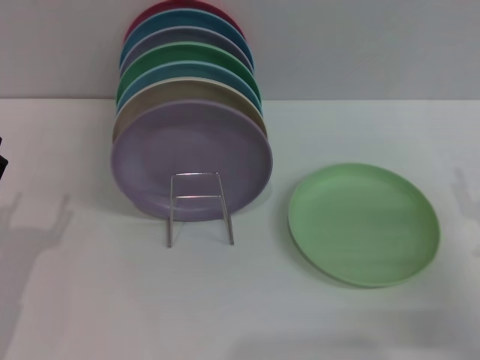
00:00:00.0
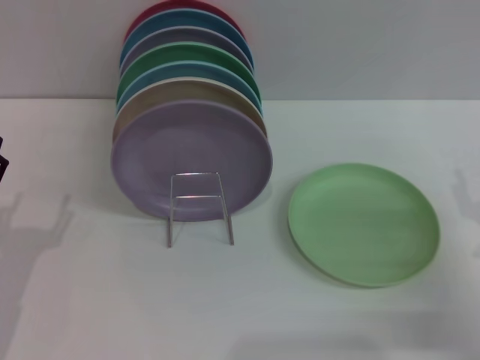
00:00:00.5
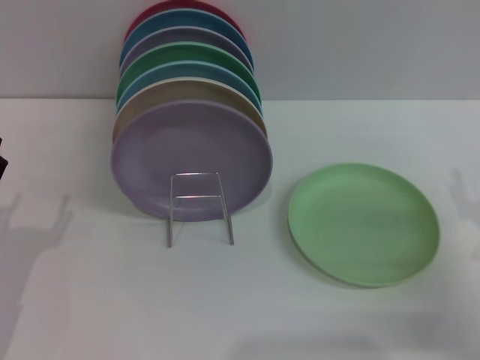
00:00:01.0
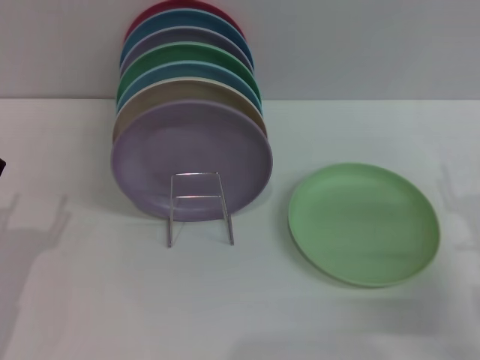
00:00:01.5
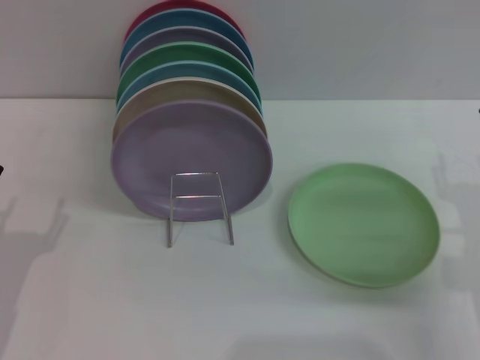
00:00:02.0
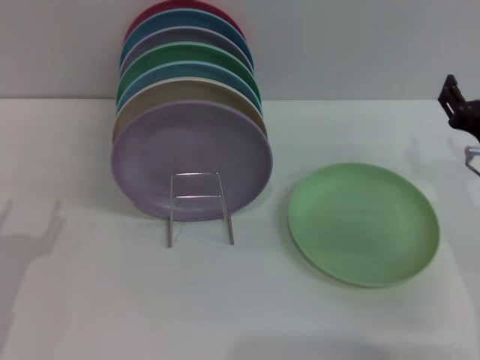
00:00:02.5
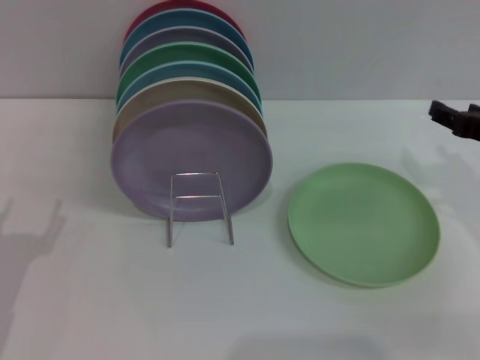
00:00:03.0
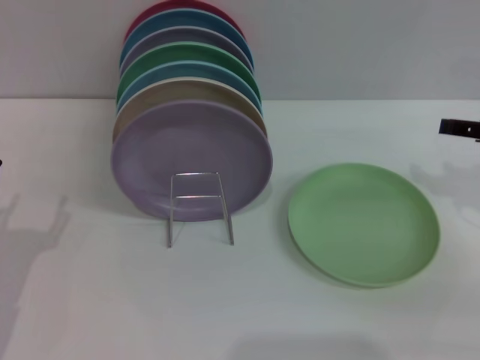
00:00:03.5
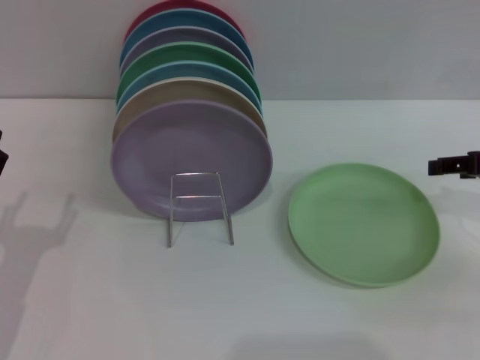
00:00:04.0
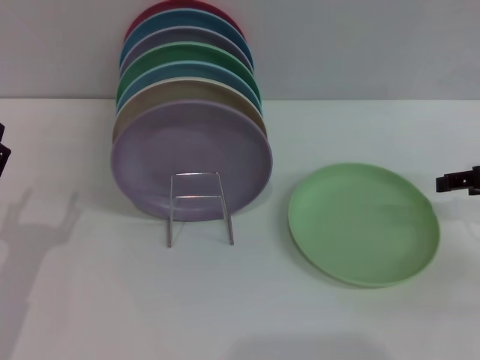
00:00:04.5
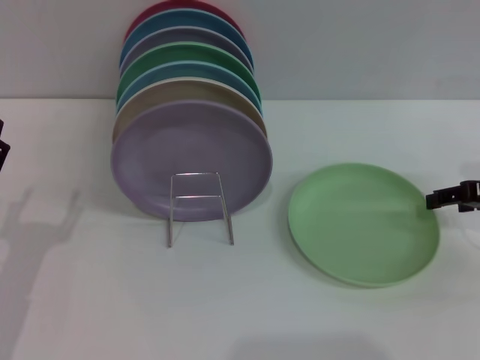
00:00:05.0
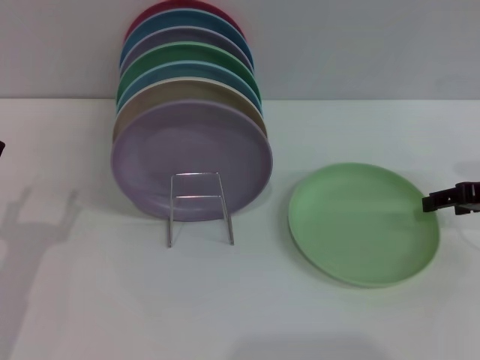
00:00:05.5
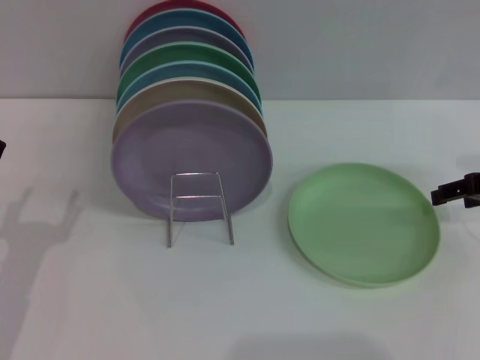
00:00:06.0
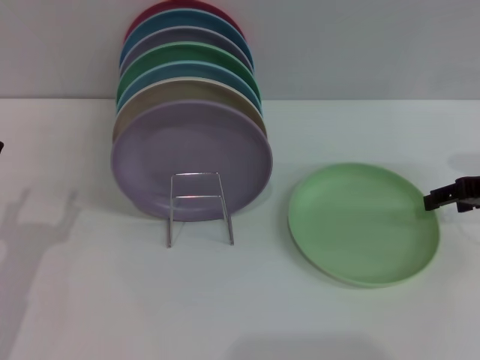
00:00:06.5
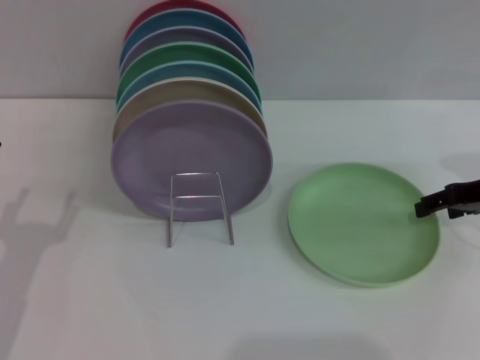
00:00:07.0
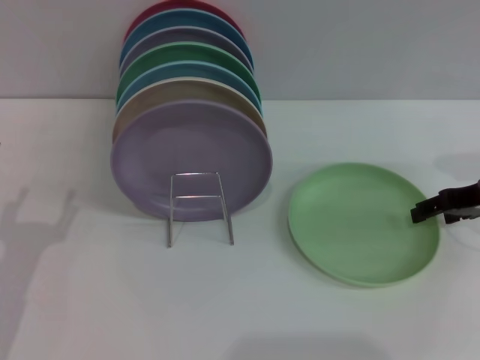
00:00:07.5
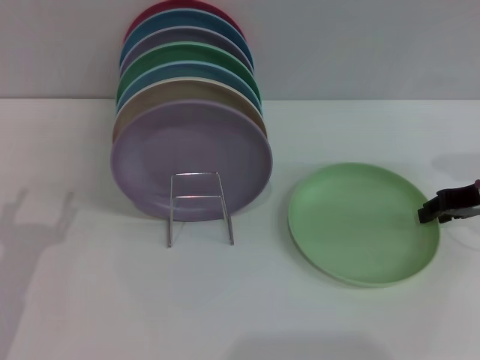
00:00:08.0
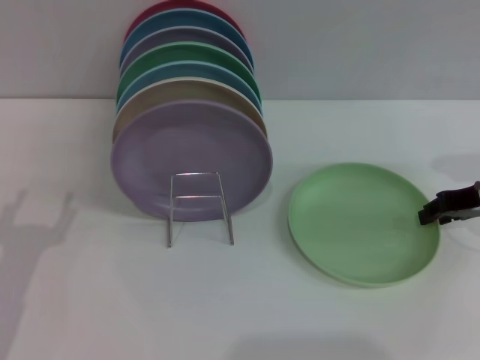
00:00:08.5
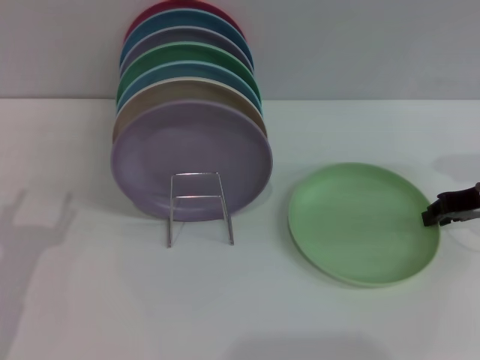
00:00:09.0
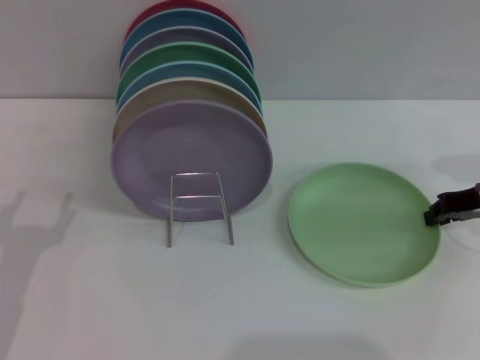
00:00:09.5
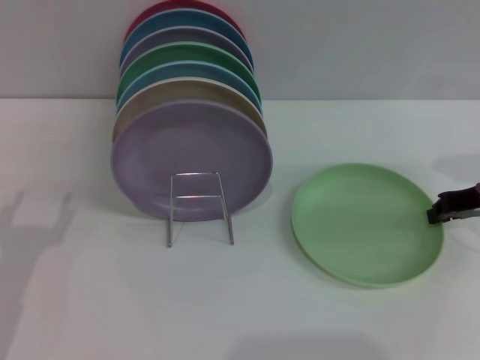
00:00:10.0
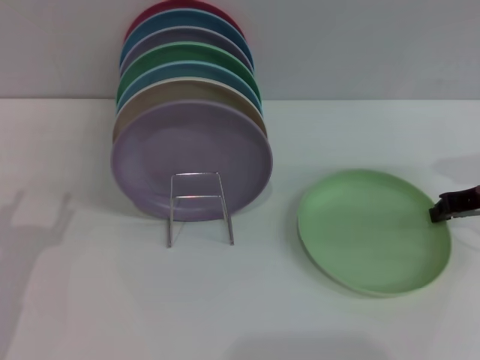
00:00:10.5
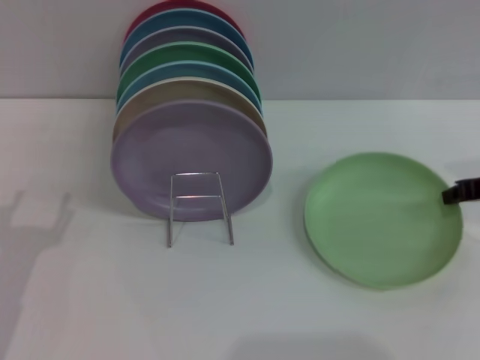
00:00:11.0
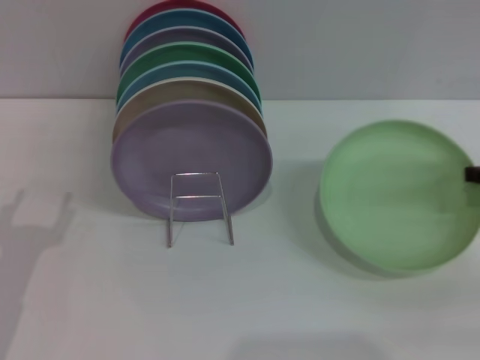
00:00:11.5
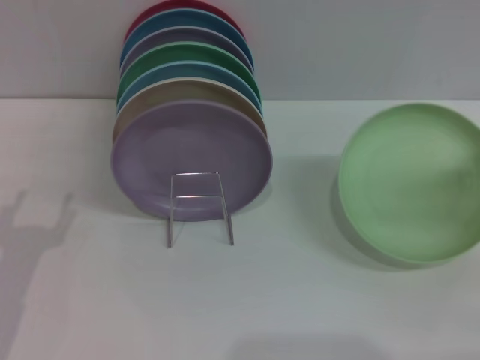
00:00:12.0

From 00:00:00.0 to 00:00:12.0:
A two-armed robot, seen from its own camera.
Task of the whole recording: Grip the plate with one hand, pass it to the other, then set it on the shelf.
From 00:00:00.0 to 00:00:02.0: The right gripper moves approximately 5 cm.
From 00:00:02.0 to 00:00:04.0: The right gripper goes approximately 15 cm upward, forward and to the right.
From 00:00:04.0 to 00:00:08.0: There are only small adjustments of the grippers.
From 00:00:08.0 to 00:00:10.0: The right gripper closes up.
From 00:00:10.0 to 00:00:12.0: The right gripper travels backward and to the right by some 10 cm.

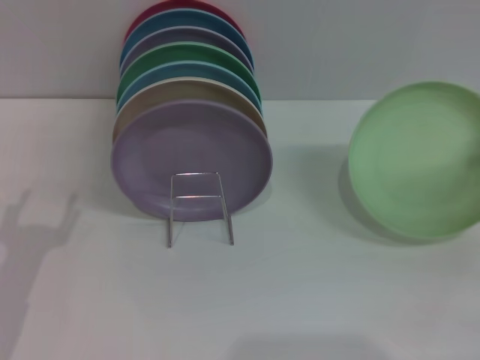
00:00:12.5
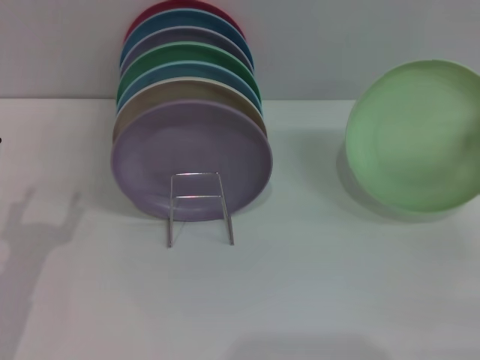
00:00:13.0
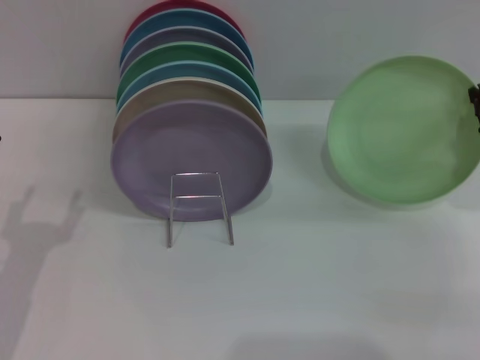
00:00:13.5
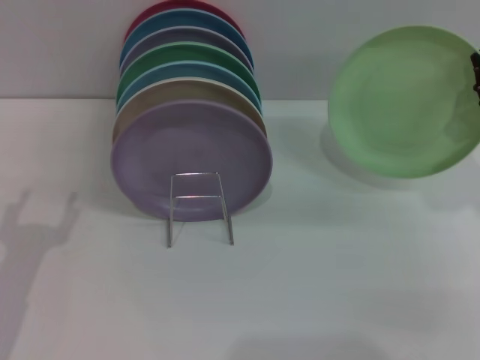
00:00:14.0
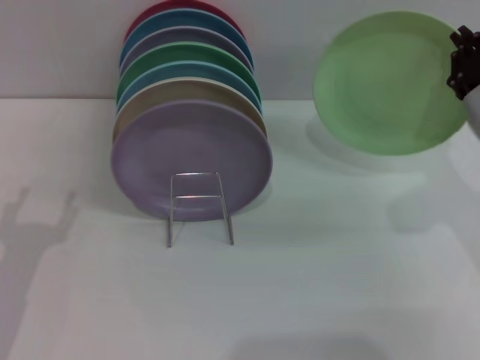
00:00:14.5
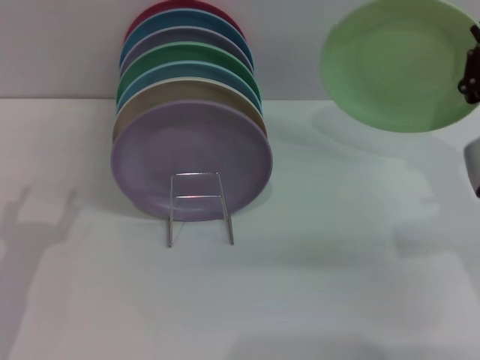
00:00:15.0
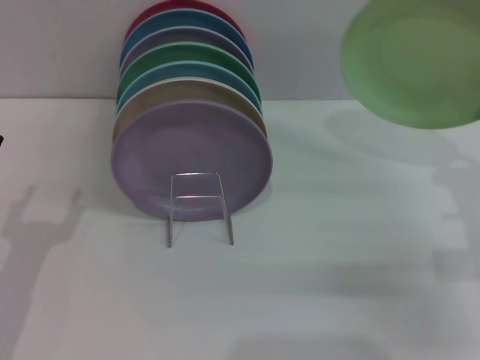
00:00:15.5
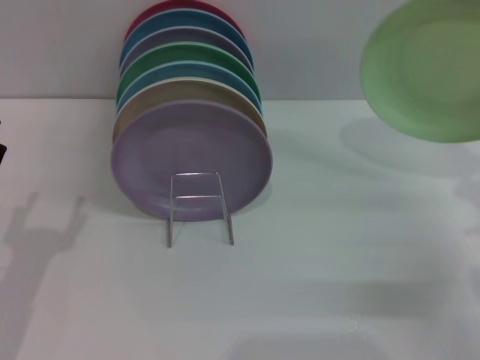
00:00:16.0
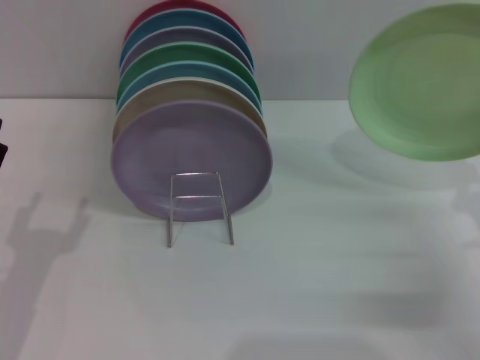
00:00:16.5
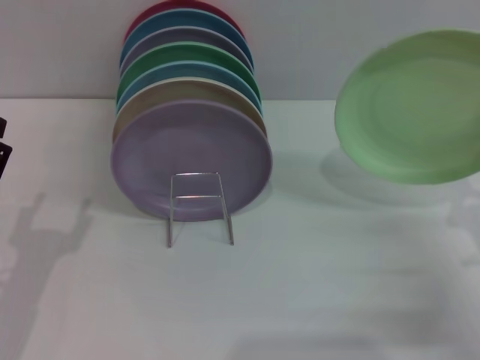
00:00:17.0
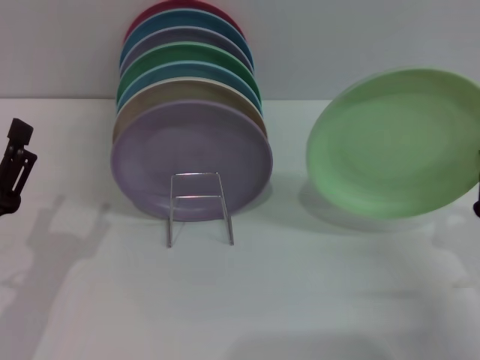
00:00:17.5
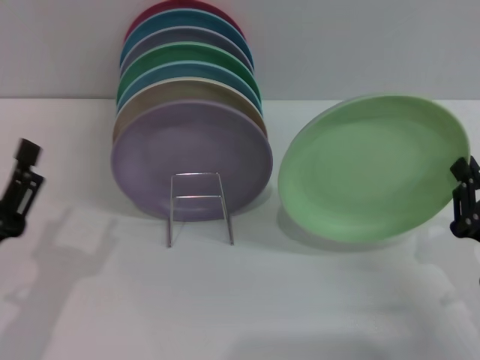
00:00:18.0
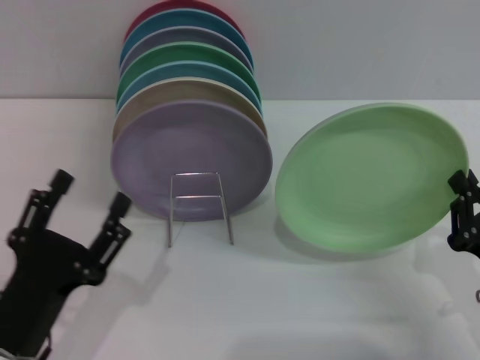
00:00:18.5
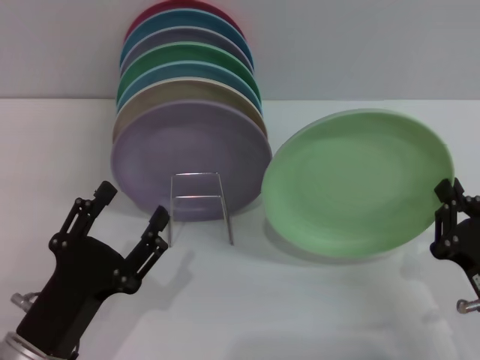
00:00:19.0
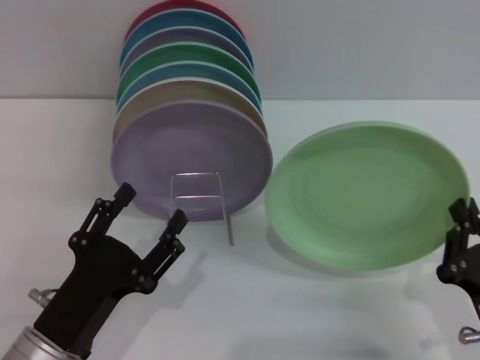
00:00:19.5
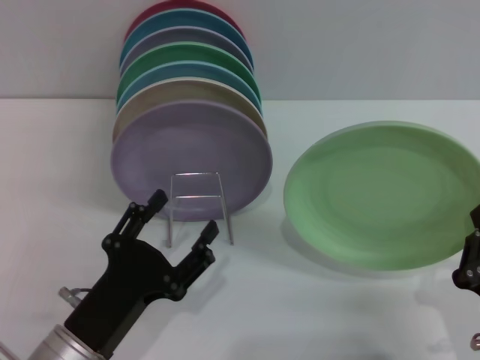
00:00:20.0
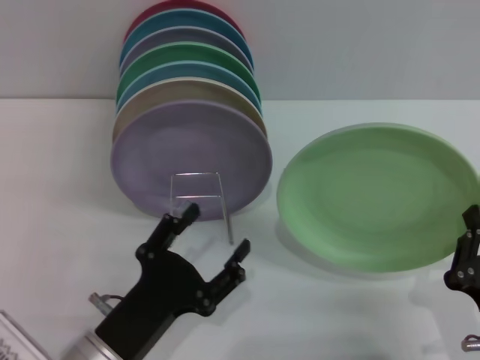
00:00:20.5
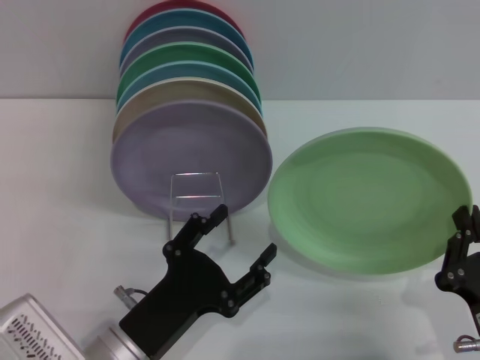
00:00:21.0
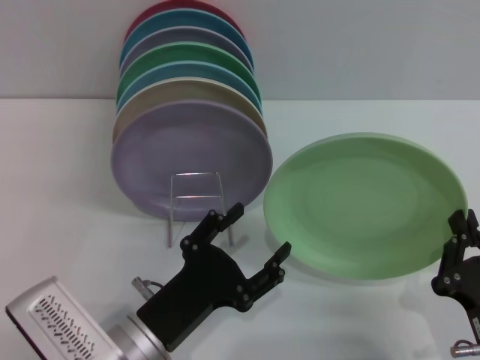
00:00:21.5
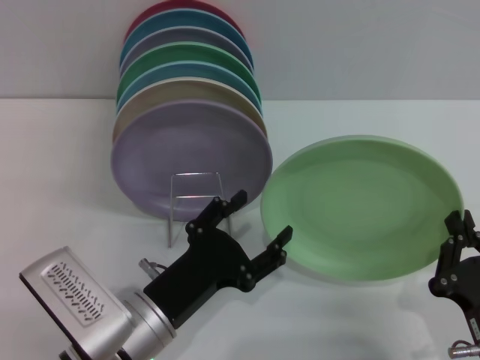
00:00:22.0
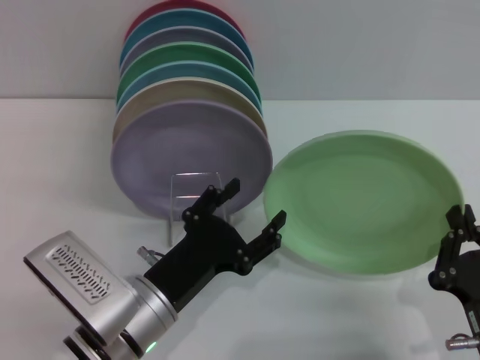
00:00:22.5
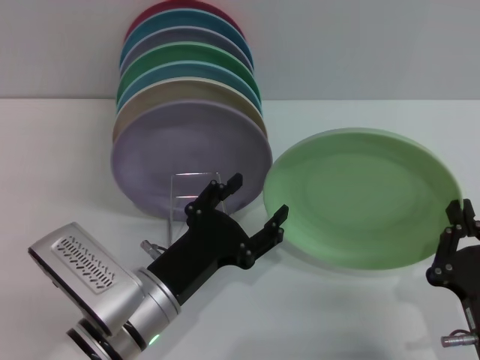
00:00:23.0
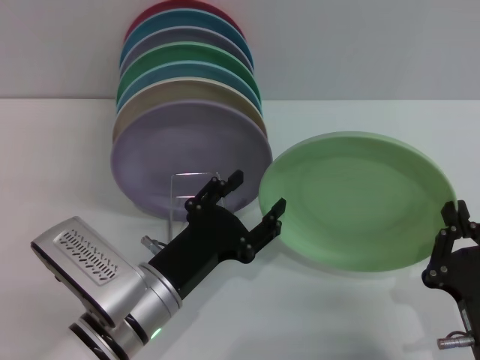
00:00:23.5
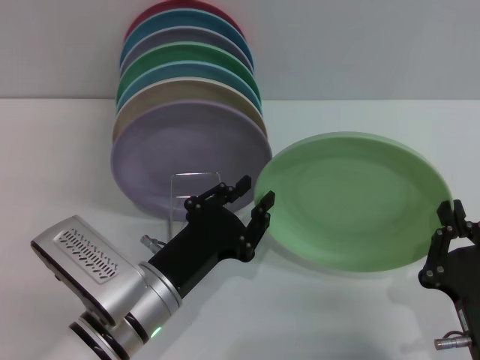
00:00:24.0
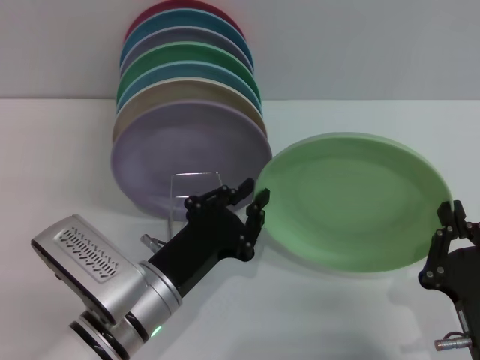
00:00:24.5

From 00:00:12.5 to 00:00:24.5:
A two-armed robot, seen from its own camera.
Task of the whole recording: Grip the plate with one hand, pass it to the other, then set it on the shelf.
Step, from 00:00:12.5 to 00:00:15.0: Pick up the plate with the right gripper.
From 00:00:12.5 to 00:00:14.5: The right gripper is displaced to the left by roughly 10 cm.
From 00:00:14.5 to 00:00:16.5: The right gripper shifts roughly 15 cm downward and backward.
From 00:00:16.5 to 00:00:18.5: The right gripper goes about 5 cm backward. The left gripper goes roughly 5 cm to the right.
From 00:00:18.5 to 00:00:20.5: The right gripper shifts about 10 cm backward and to the left; the left gripper goes roughly 5 cm to the right.
From 00:00:20.5 to 00:00:22.5: The left gripper travels forward by some 5 cm.
From 00:00:22.5 to 00:00:24.5: The left gripper closes.

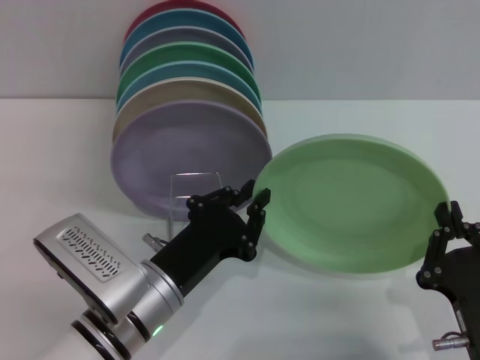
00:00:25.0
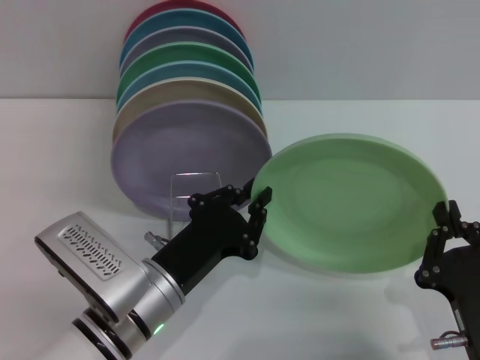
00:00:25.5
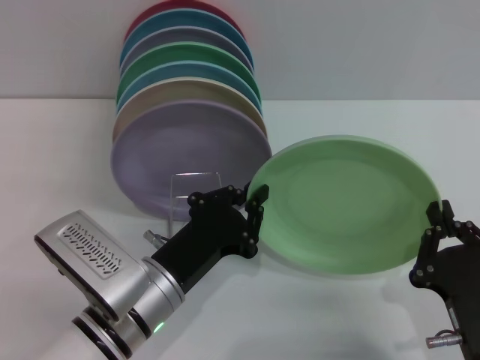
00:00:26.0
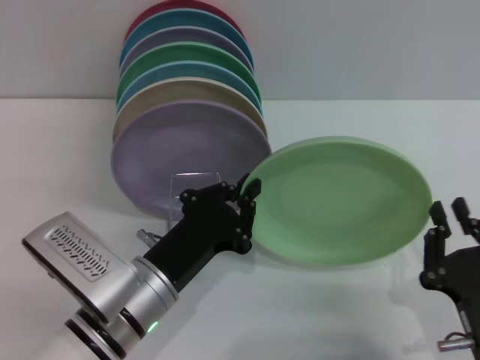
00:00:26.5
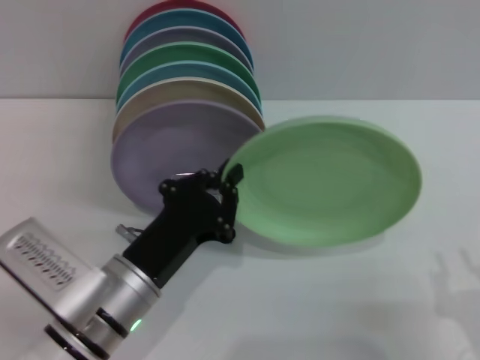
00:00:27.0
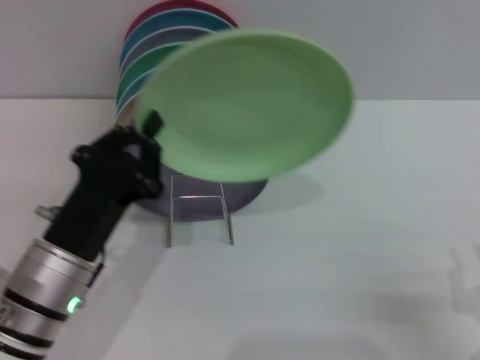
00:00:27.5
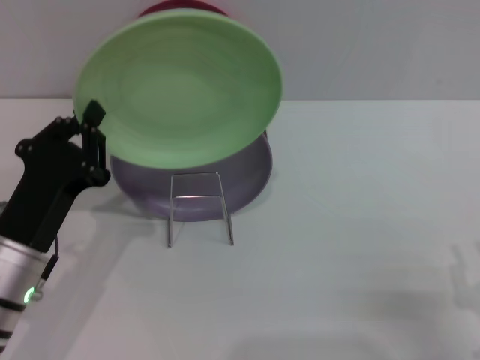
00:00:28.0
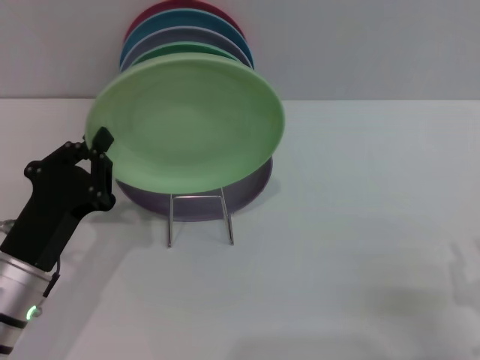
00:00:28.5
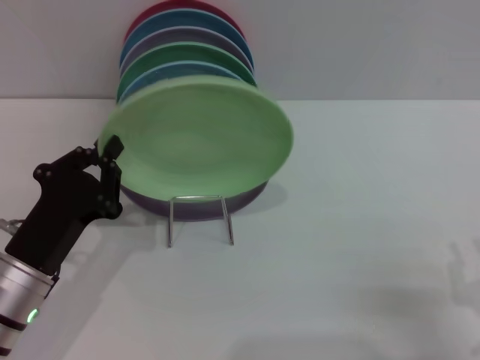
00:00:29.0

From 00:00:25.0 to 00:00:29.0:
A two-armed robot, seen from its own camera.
Task of the whole recording: Grip the plate with one hand, pass it to the other, then set it on the shelf.
From 00:00:25.0 to 00:00:27.0: The right gripper travels to the right by about 5 cm, and opens its fingers.
From 00:00:27.0 to 00:00:29.0: The left gripper goes some 10 cm to the left.
